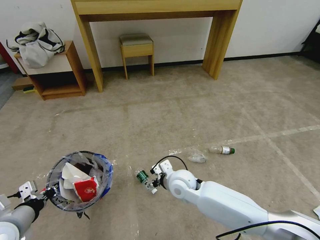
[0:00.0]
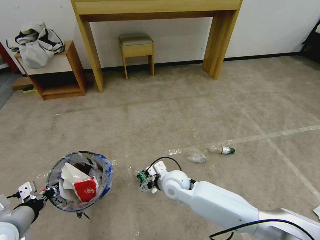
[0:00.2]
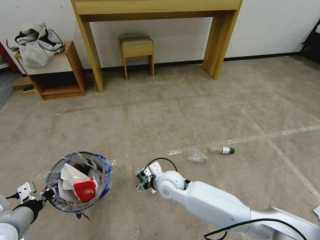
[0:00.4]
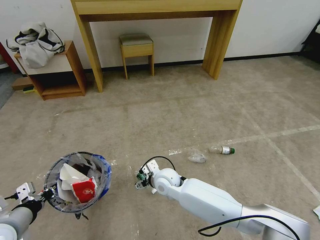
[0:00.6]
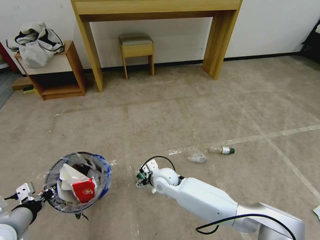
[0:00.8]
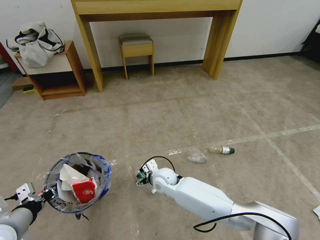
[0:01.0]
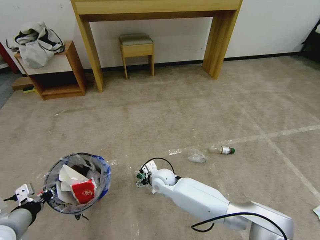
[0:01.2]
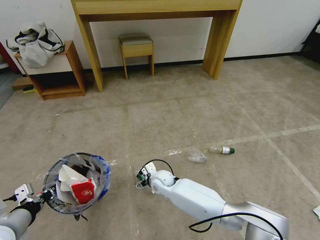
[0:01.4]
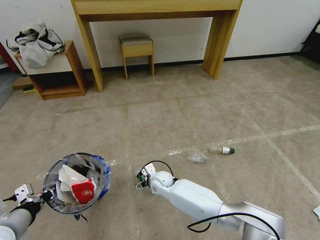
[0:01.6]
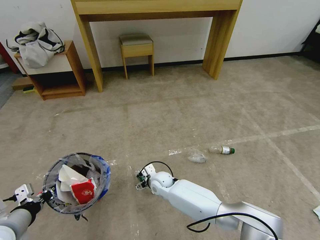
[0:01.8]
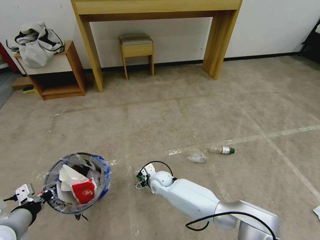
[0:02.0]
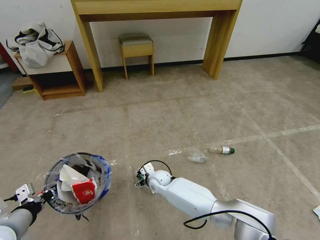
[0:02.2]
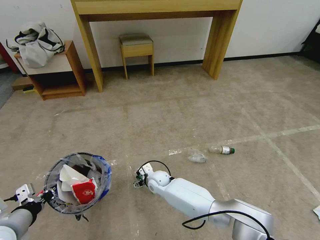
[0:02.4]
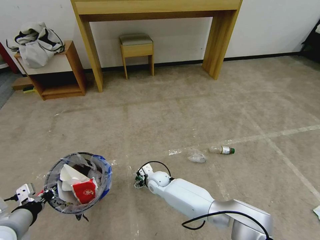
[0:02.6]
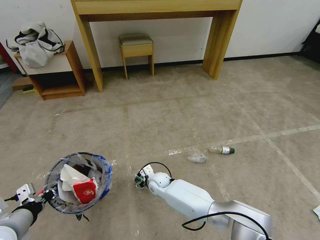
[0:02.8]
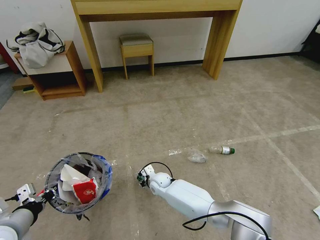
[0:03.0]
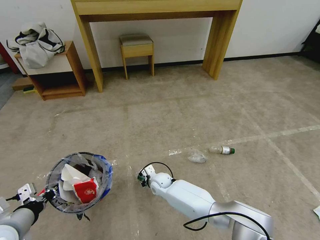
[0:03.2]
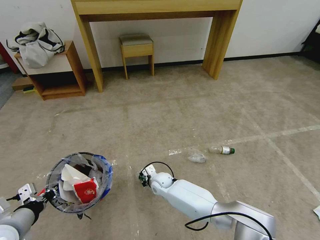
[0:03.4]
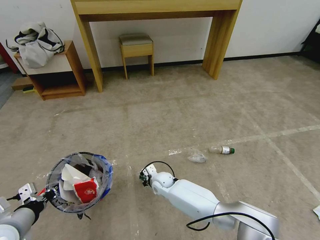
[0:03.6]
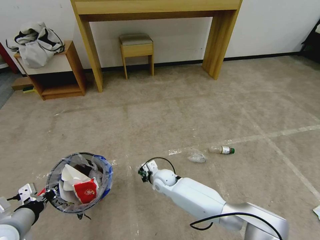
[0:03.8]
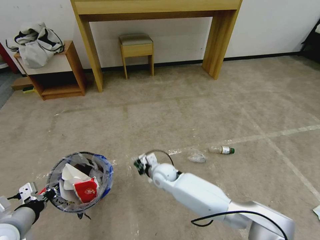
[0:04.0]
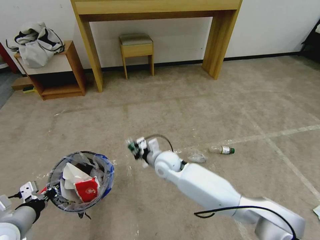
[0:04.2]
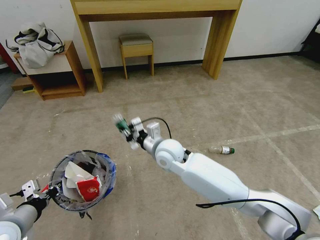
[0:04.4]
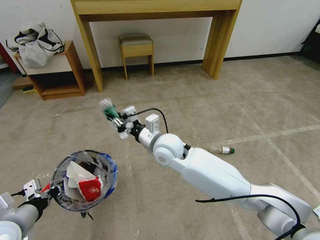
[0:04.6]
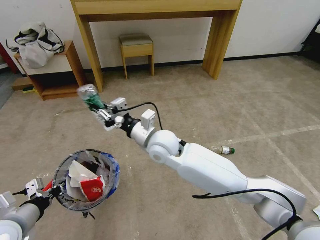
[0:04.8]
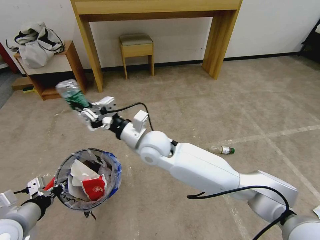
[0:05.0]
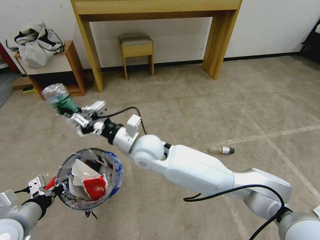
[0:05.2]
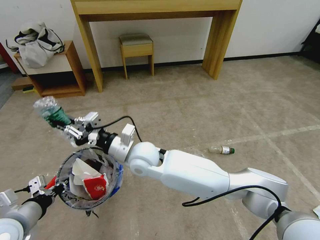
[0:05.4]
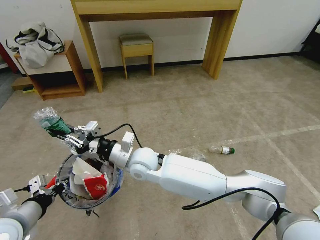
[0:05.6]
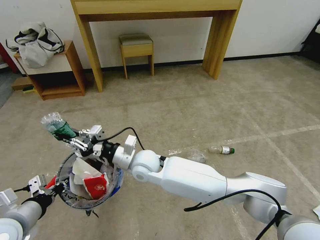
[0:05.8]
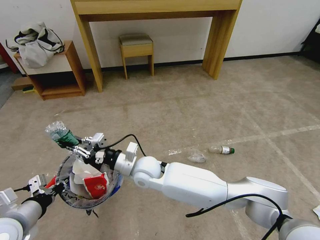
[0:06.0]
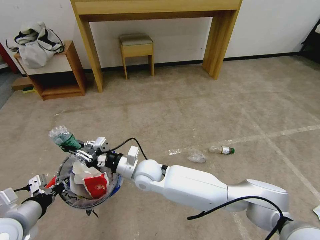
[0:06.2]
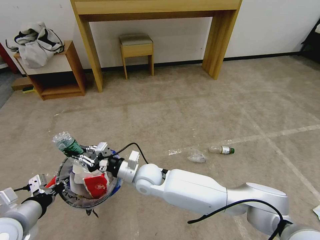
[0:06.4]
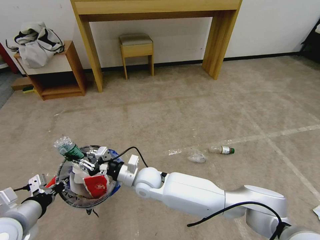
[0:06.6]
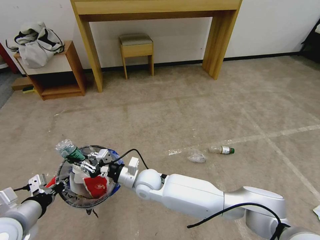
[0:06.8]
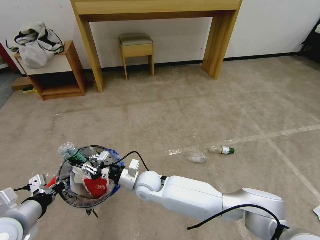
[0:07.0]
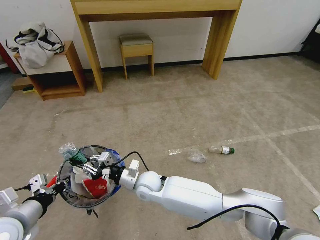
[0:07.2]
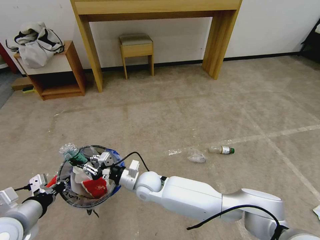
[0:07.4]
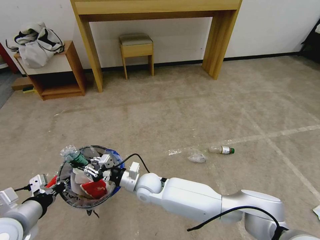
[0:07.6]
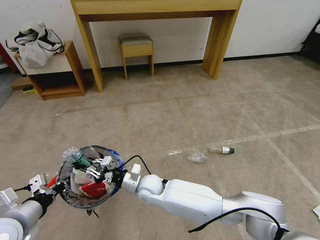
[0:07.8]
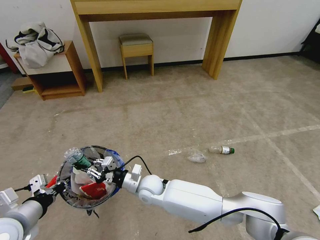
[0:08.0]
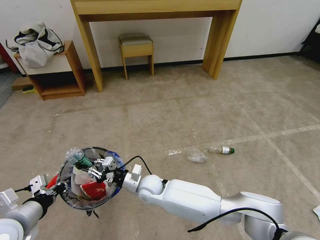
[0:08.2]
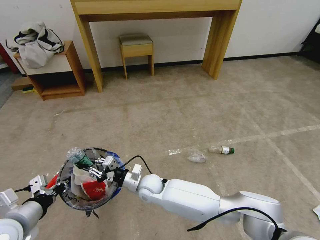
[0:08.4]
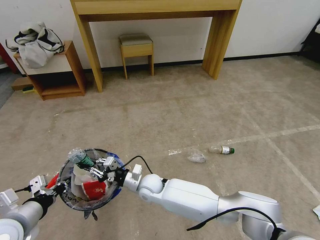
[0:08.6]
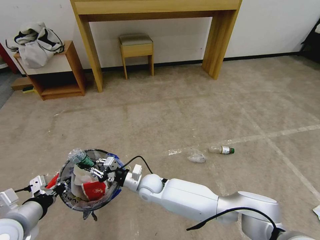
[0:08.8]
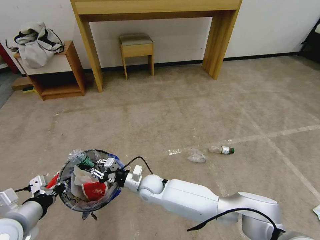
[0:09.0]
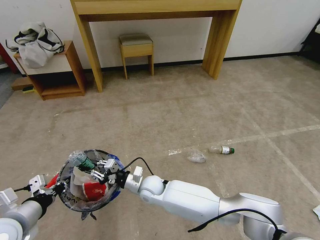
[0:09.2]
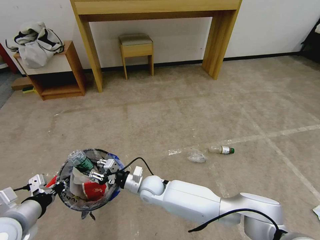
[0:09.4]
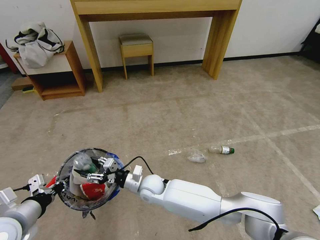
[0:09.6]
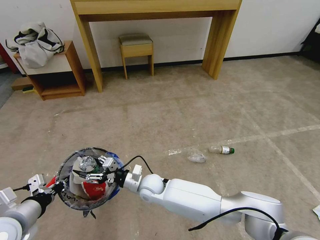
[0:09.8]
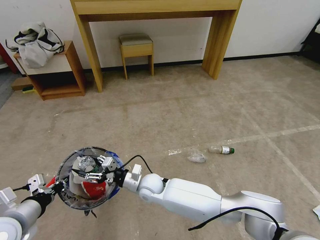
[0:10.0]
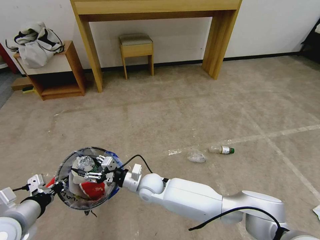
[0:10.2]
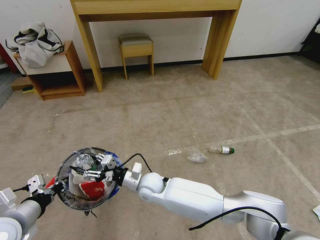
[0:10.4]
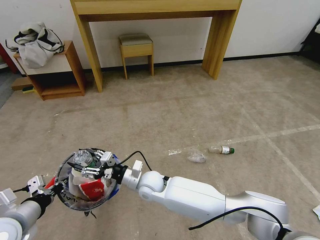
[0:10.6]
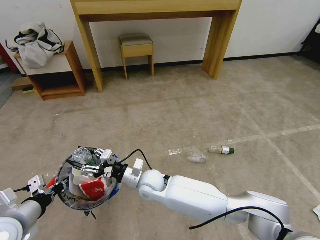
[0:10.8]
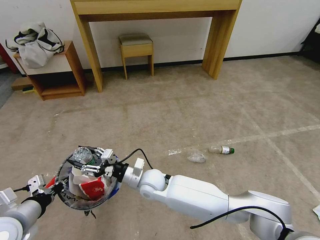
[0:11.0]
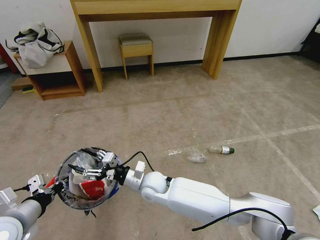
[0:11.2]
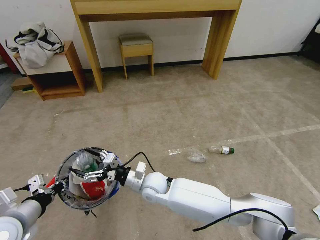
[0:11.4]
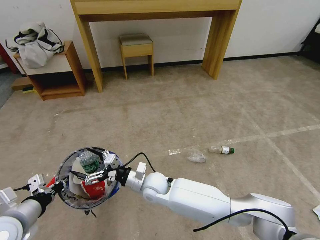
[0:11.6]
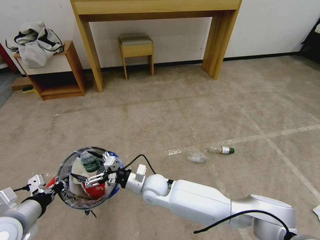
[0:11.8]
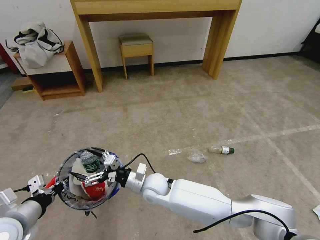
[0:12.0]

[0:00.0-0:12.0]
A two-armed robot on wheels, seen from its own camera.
Task of the whole recording: Pick up the trash bin and place the garbage on the floor into it.
0:00.0 to 0:01.6: The right gripper is displaced downward, to the left and forward by approximately 15 cm.
0:01.6 to 0:03.0: The right gripper closes.
0:03.0 to 0:04.4: The right gripper shifts approximately 25 cm upward, and closes its fingers.
0:04.4 to 0:06.0: The right gripper travels to the left by about 10 cm, and moves about 5 cm upward and comes back.
0:06.0 to 0:07.6: The right gripper heads downward, covering about 10 cm.
0:07.6 to 0:09.0: The grippers stay close to where they were, moving slightly.
0:09.0 to 0:10.4: The right gripper opens its fingers.
0:10.4 to 0:12.0: The right gripper opens its fingers.

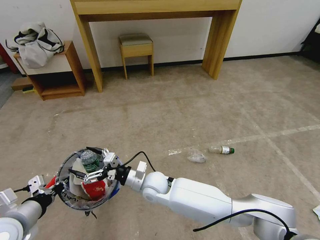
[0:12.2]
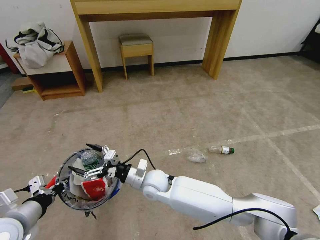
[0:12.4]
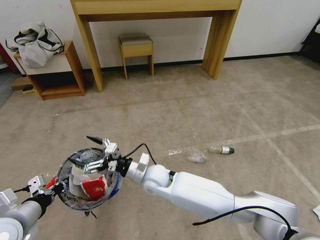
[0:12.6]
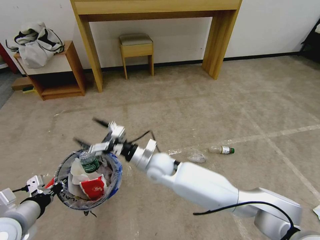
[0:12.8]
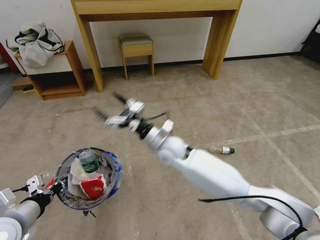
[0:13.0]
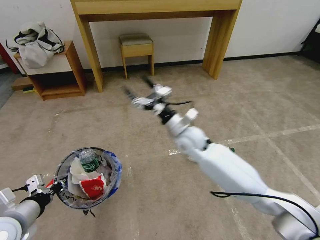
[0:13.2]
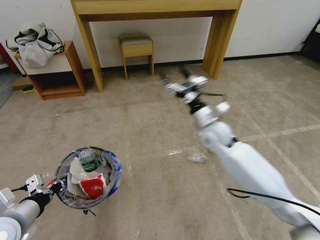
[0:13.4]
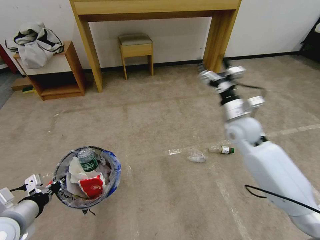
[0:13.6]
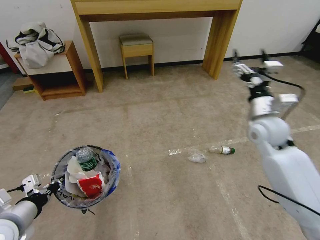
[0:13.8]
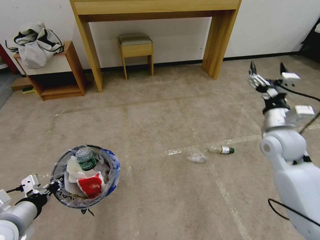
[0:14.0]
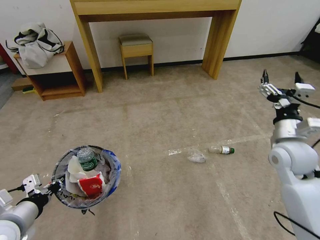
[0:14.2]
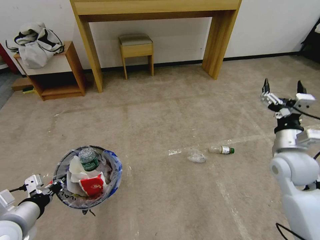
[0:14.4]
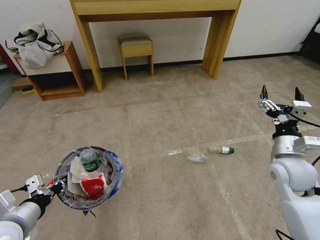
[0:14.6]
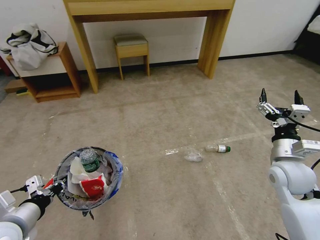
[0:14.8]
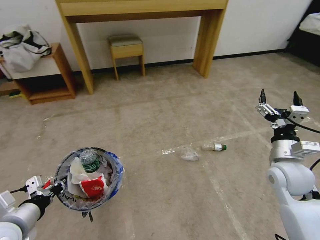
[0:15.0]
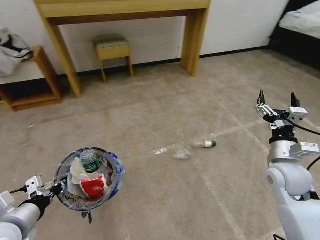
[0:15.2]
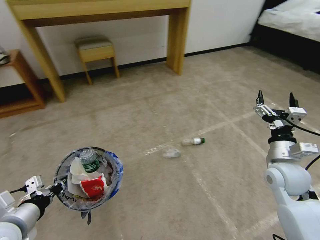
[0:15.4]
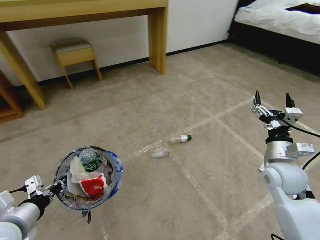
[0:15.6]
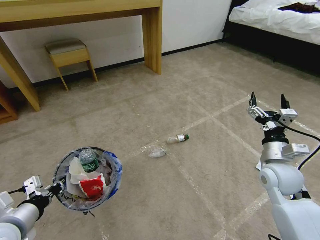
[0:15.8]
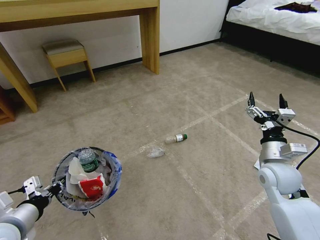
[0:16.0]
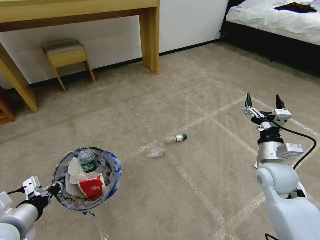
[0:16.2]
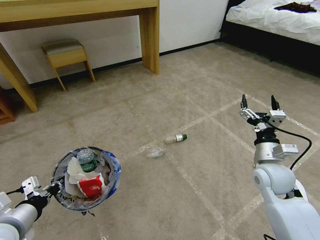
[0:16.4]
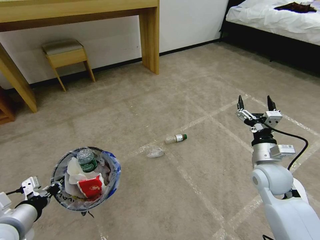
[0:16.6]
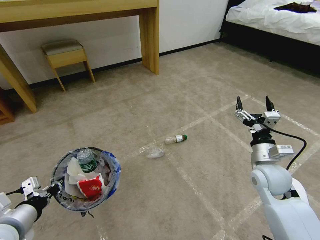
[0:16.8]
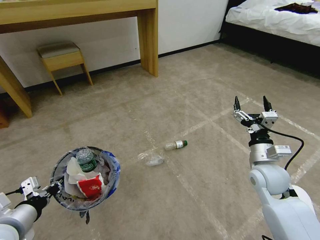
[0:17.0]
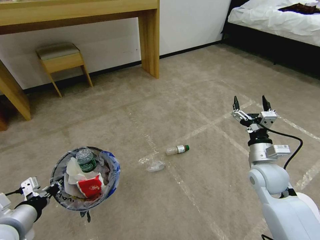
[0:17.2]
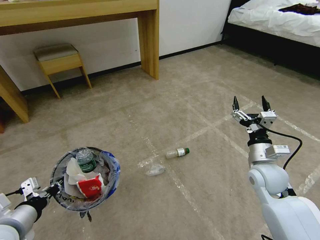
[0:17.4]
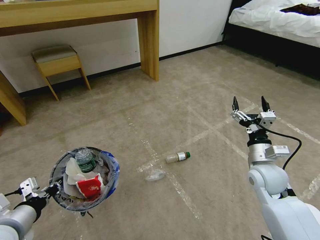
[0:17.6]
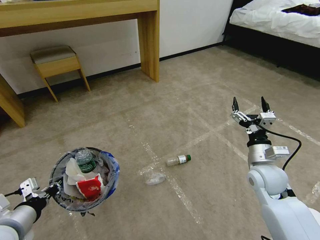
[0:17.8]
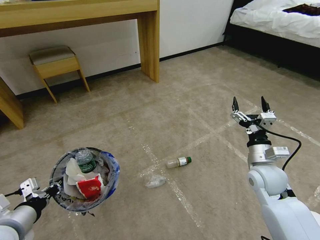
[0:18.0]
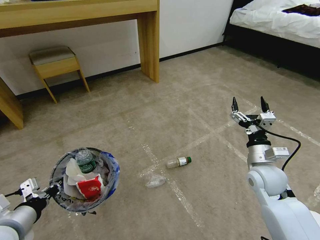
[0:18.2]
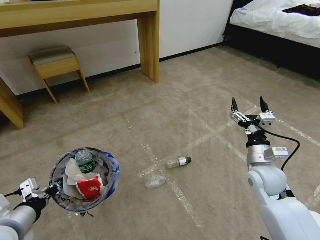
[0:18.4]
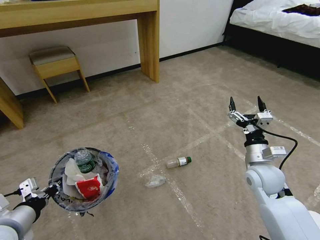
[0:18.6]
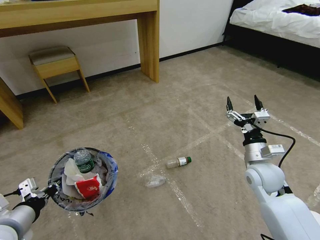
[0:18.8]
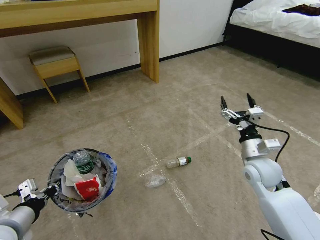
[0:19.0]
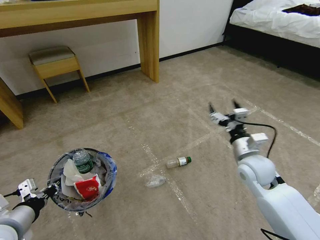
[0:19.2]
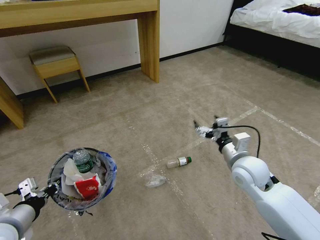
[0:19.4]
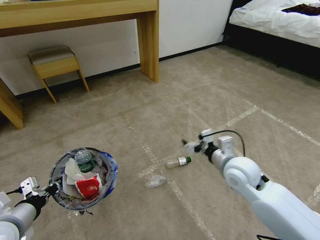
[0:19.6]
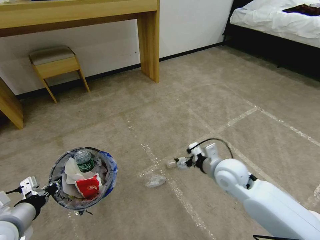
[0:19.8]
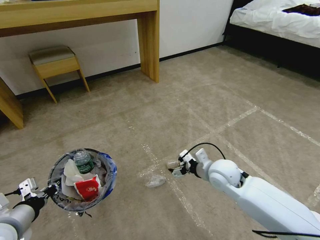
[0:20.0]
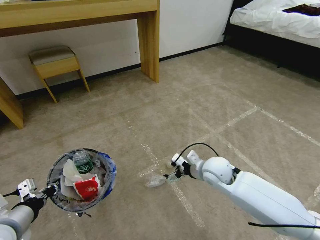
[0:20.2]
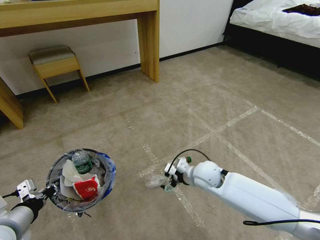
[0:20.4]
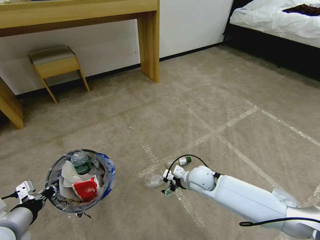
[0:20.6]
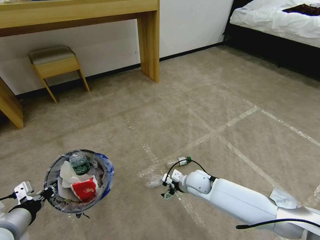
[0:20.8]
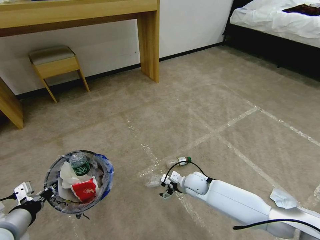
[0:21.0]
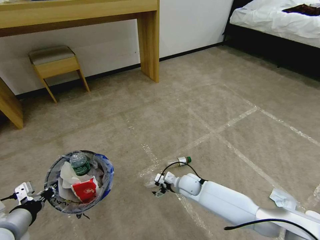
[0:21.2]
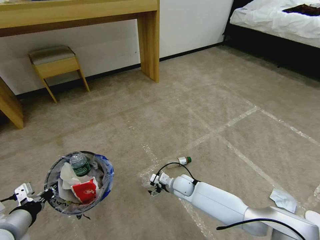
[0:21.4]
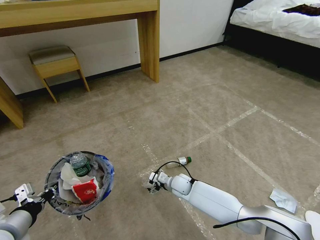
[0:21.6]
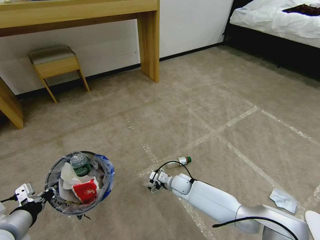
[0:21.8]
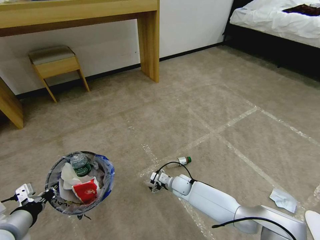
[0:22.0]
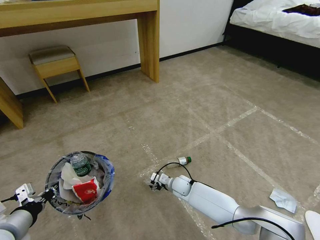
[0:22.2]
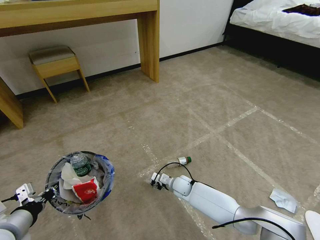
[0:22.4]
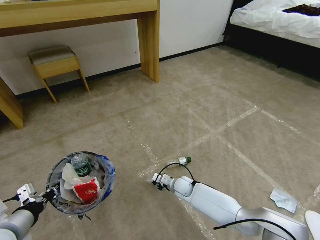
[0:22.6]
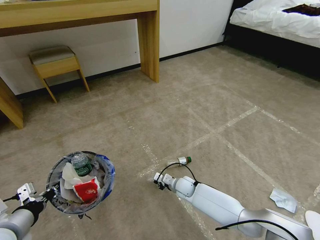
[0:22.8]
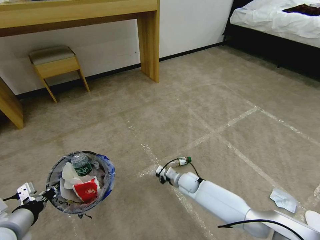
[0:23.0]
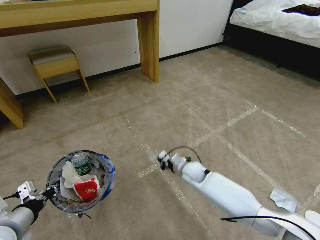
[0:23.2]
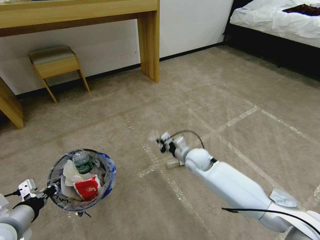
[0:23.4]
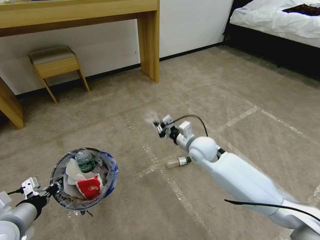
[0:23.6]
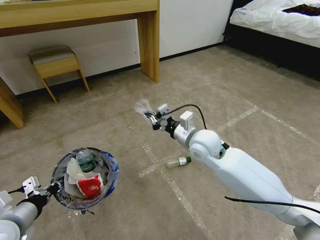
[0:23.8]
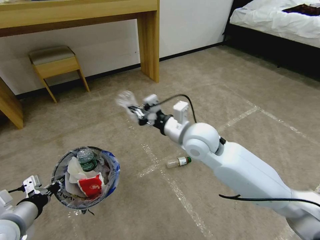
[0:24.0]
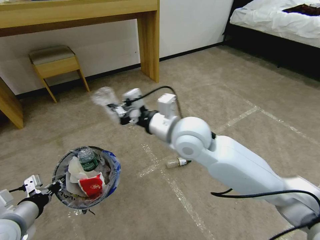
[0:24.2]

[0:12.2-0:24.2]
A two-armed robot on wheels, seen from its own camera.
Task of the whole recording: Pick up the trash bin and place the garbage on the floor into it.
0:12.2 to 0:13.8: The right gripper shifts some 40 cm to the right and upward.
0:13.8 to 0:15.2: The right gripper heads backward and downward, covering approximately 15 cm.
0:18.2 to 0:19.8: The right gripper goes some 10 cm to the left.
0:19.8 to 0:21.2: The right gripper goes approximately 20 cm downward and to the left.
0:21.2 to 0:22.6: The right gripper travels downward by some 5 cm, and closes up.
0:22.6 to 0:24.2: The right gripper heads upward, covering about 40 cm, and closes its fingers.
